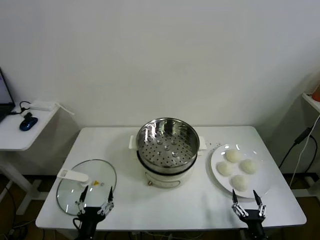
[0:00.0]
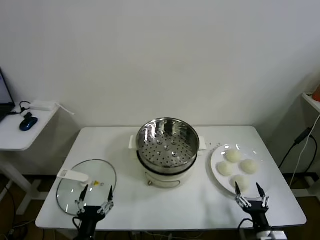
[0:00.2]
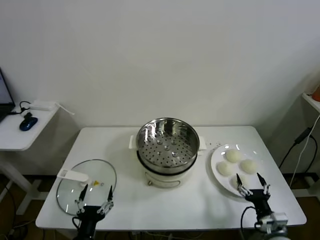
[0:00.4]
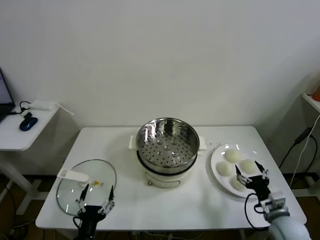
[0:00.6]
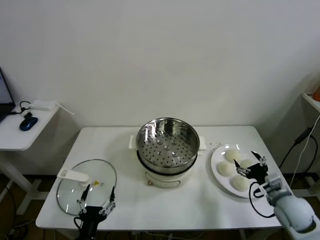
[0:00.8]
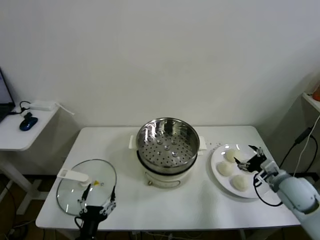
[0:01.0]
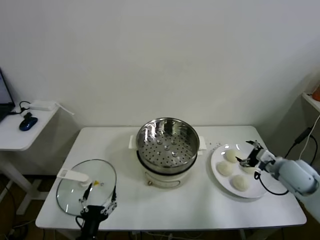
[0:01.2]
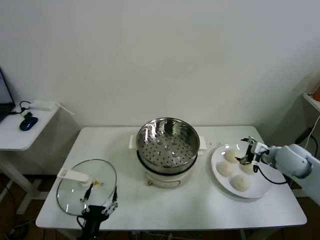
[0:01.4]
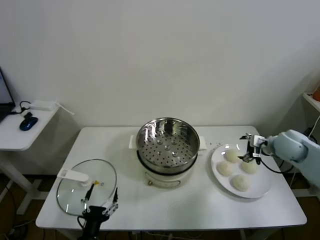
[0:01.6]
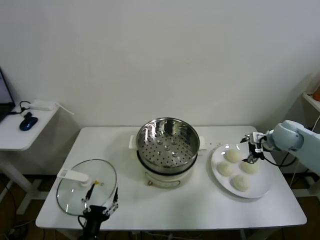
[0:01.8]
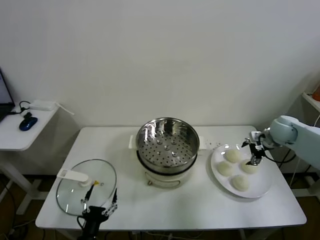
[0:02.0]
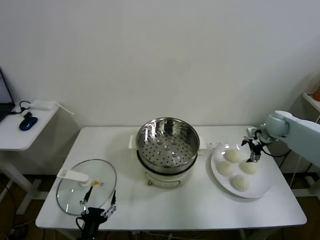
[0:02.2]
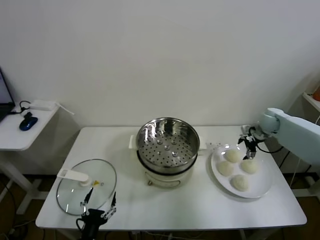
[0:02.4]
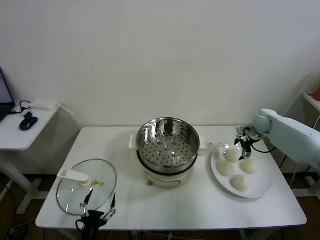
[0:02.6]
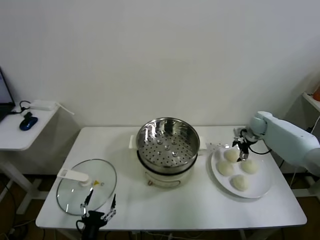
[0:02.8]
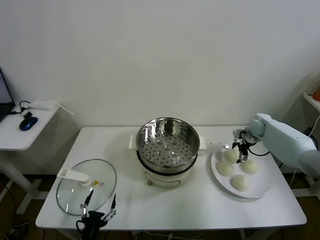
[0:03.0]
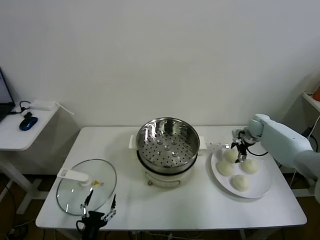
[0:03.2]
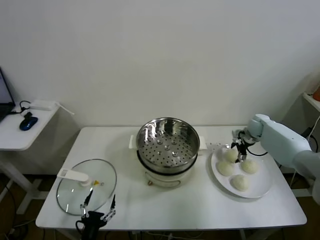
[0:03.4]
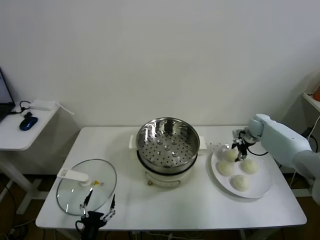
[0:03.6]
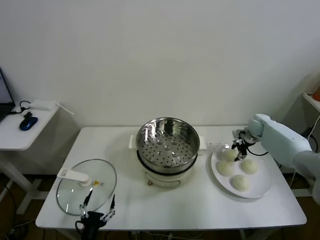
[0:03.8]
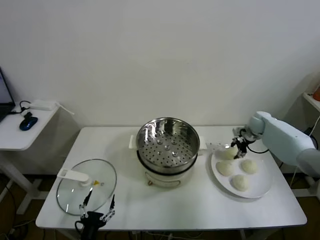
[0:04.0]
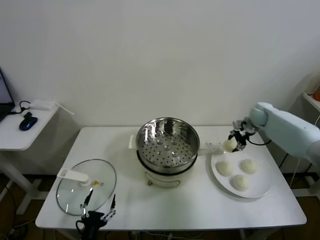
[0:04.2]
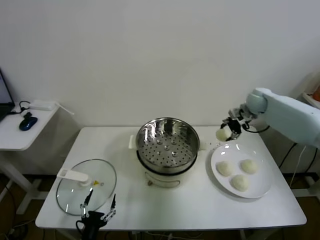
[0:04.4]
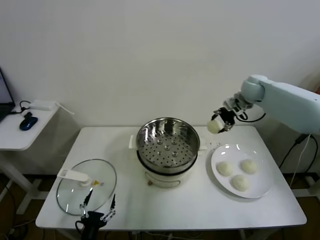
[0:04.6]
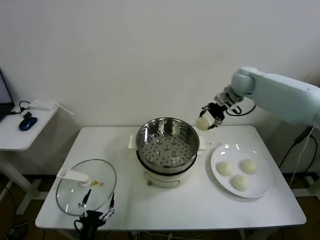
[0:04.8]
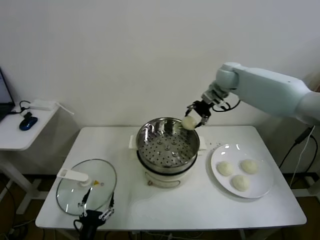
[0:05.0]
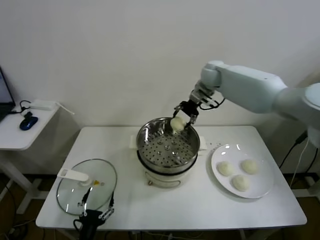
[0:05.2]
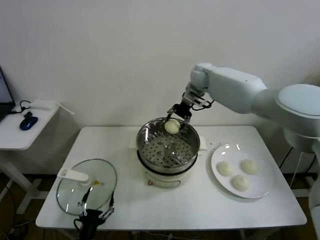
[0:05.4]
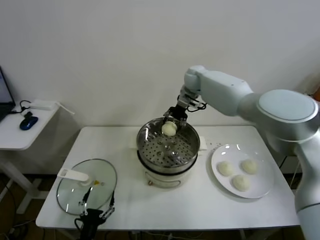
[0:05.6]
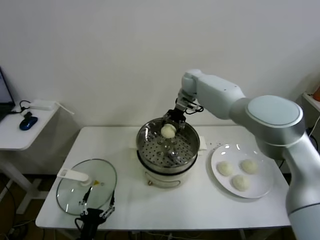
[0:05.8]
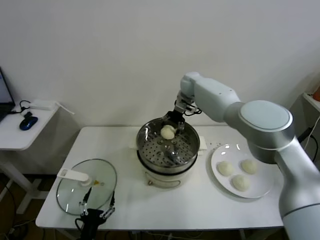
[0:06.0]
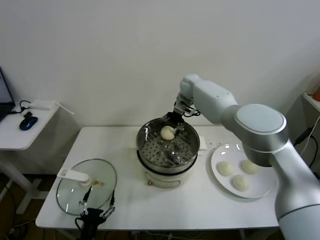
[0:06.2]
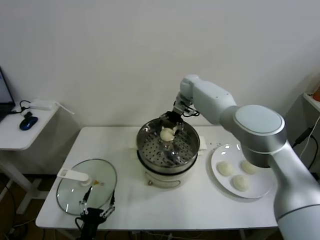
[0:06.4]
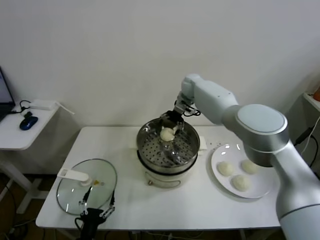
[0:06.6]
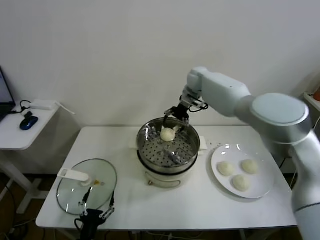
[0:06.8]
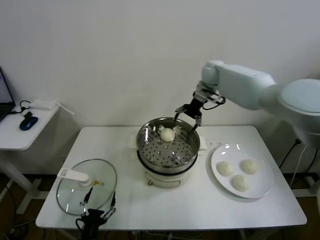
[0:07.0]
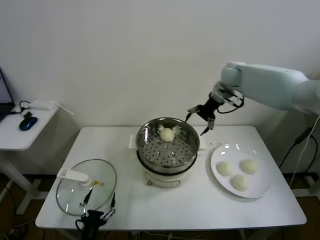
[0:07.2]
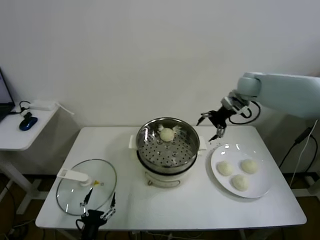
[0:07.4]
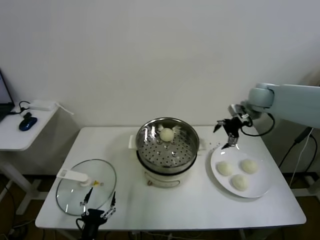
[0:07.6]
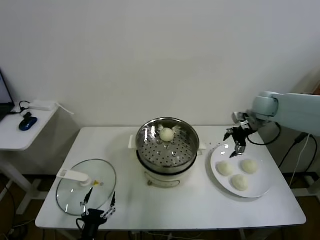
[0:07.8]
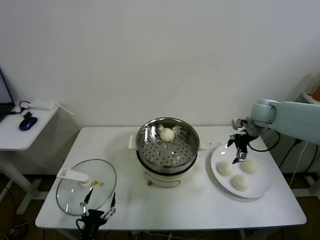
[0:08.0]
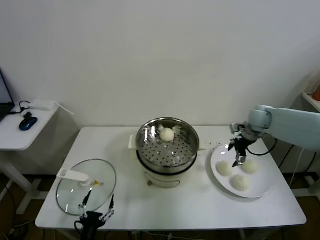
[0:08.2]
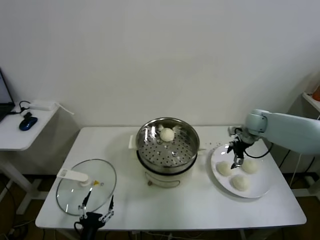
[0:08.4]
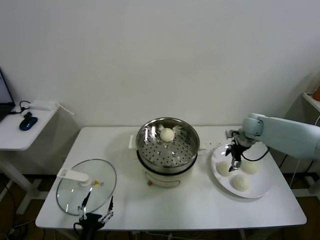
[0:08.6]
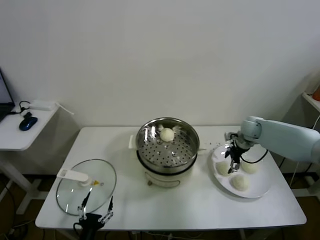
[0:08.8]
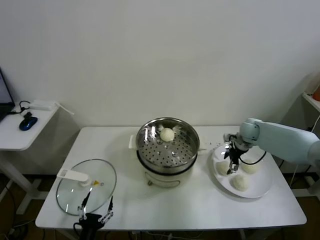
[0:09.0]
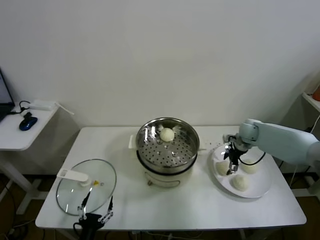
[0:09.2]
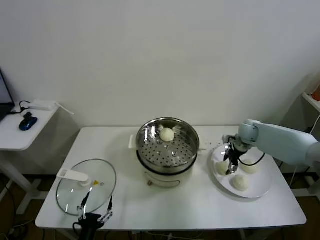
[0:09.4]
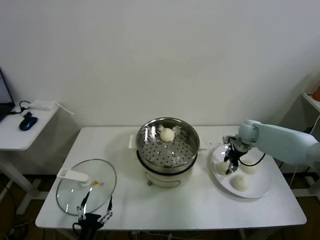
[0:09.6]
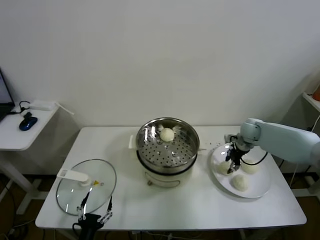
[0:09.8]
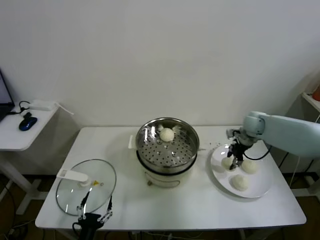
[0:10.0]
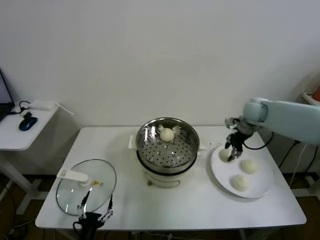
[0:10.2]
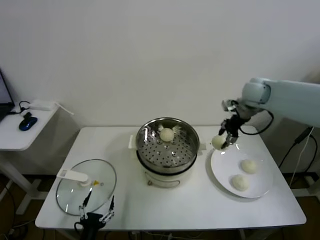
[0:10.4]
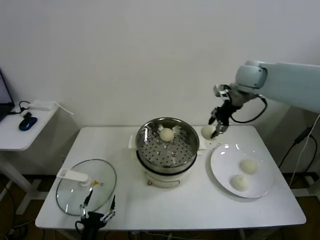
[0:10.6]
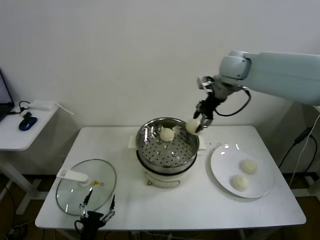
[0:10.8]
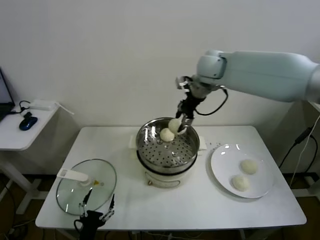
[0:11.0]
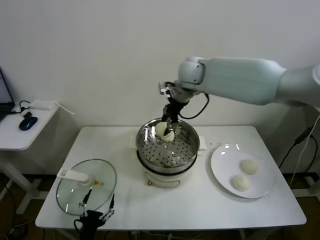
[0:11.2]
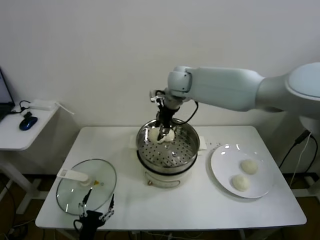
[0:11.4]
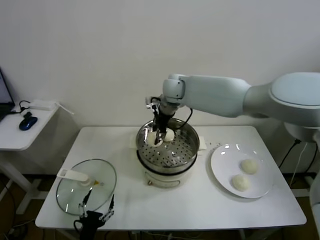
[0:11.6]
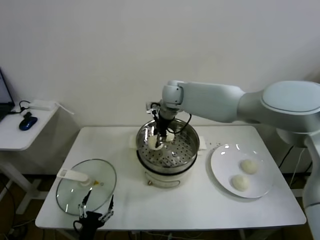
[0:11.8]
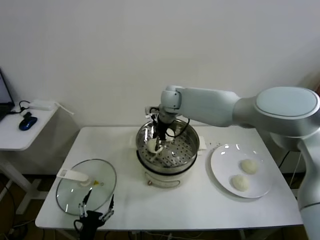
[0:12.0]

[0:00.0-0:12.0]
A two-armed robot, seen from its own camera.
Task of the whole recording: take steamed baozi put them in steamer.
Step, 0:00.0 to 0:03.8: Grasp the baozi in the plate with right gripper.
Step, 0:04.0 to 0:06.6: Place the baozi on the steamer with right gripper.
Step, 0:06.8 to 0:09.6: Grasp the baozi in the plate with right gripper.
0:01.6 to 0:03.0: The right gripper heads forward and downward, covering some 15 cm.
0:03.0 to 0:04.4: The right gripper heads upward and to the left, covering about 15 cm, and closes its fingers.
0:04.4 to 0:06.0: The right gripper moves to the left, roughly 25 cm.
0:06.0 to 0:07.6: The right gripper goes approximately 25 cm to the right and backward, and opens.
0:07.6 to 0:09.0: The right gripper is displaced downward by approximately 15 cm.
0:09.0 to 0:10.4: The right gripper goes roughly 20 cm upward, and closes up.
0:10.4 to 0:12.0: The right gripper is displaced to the left by some 25 cm.

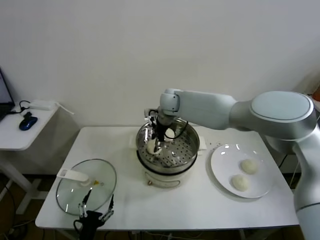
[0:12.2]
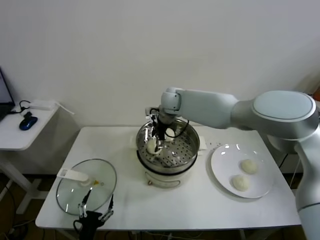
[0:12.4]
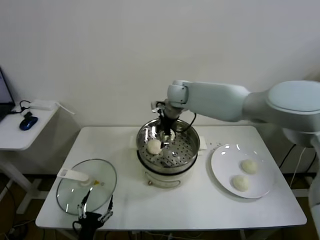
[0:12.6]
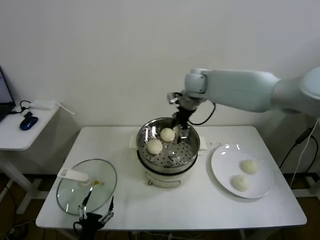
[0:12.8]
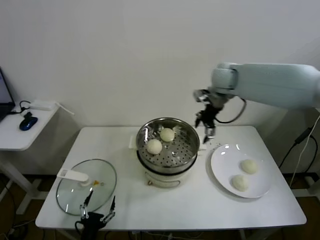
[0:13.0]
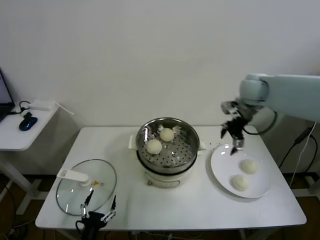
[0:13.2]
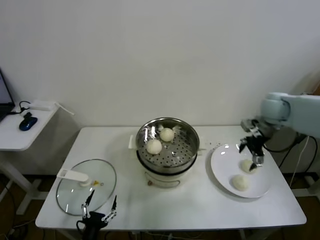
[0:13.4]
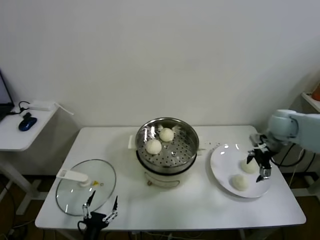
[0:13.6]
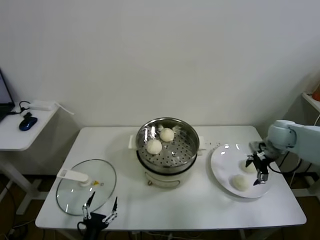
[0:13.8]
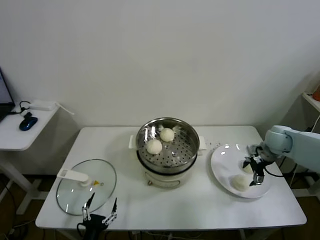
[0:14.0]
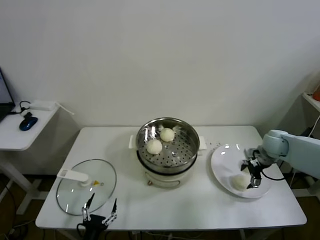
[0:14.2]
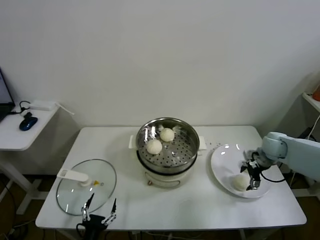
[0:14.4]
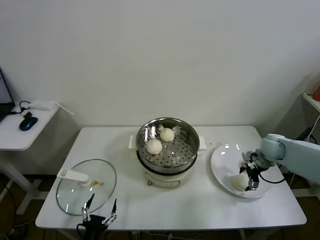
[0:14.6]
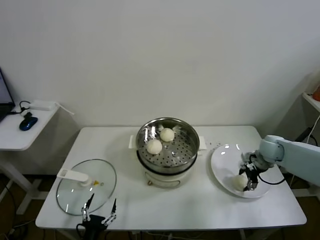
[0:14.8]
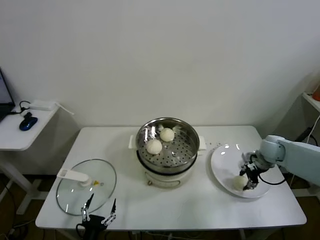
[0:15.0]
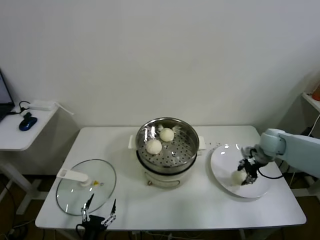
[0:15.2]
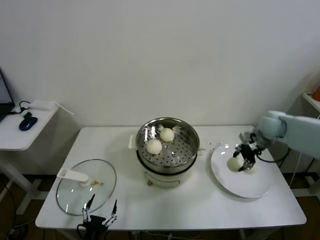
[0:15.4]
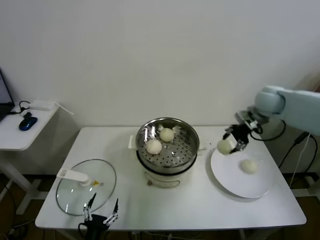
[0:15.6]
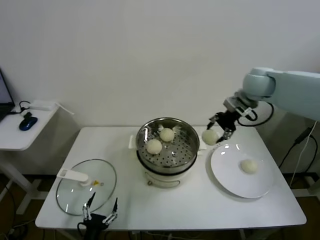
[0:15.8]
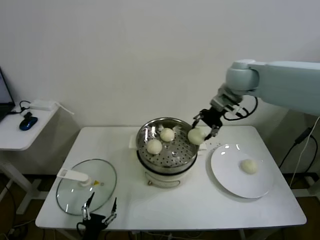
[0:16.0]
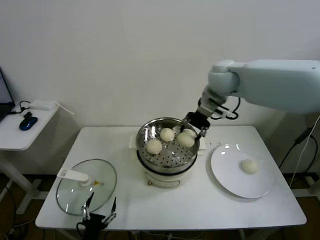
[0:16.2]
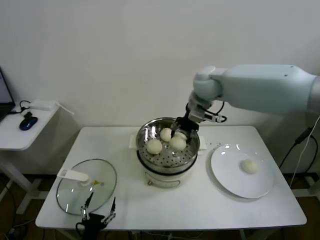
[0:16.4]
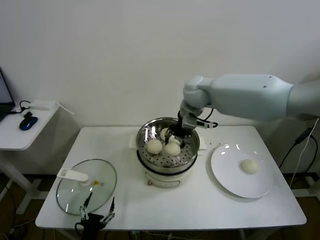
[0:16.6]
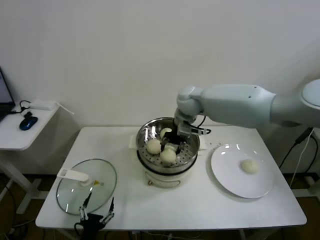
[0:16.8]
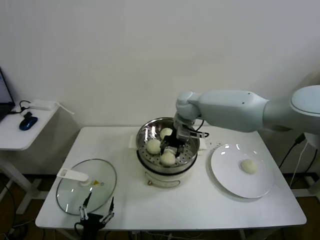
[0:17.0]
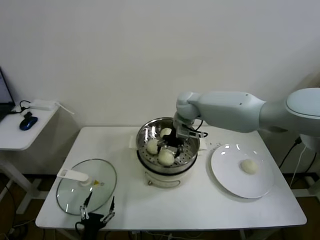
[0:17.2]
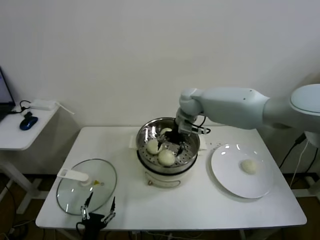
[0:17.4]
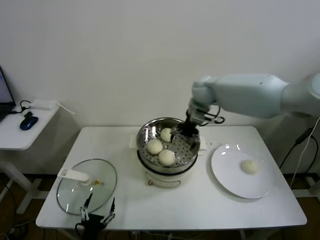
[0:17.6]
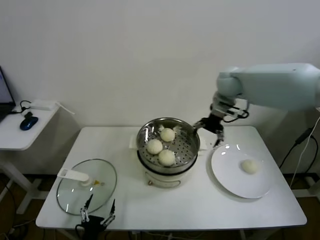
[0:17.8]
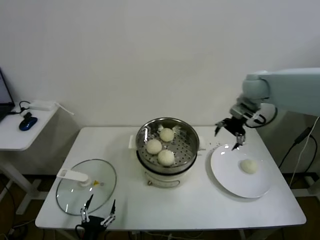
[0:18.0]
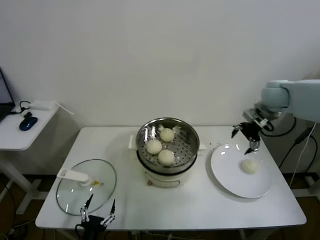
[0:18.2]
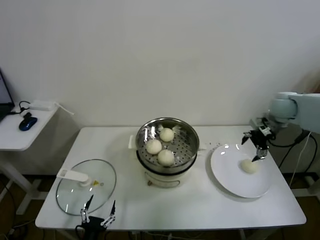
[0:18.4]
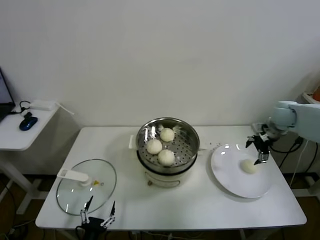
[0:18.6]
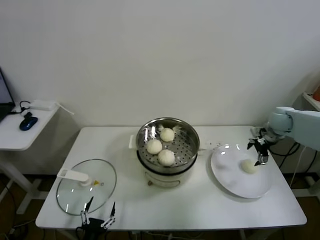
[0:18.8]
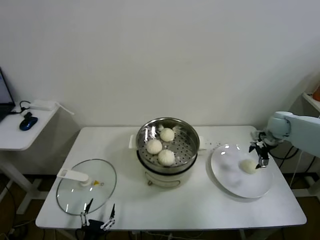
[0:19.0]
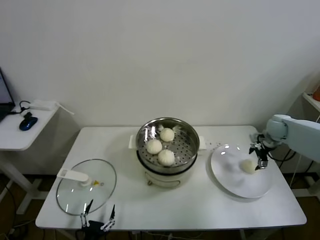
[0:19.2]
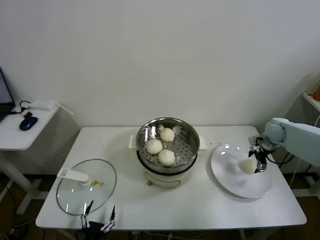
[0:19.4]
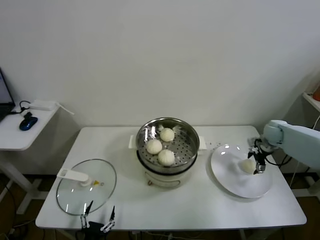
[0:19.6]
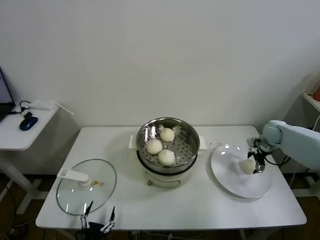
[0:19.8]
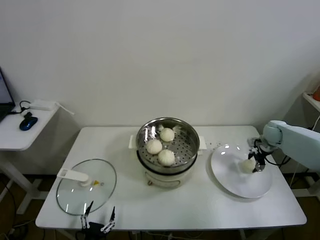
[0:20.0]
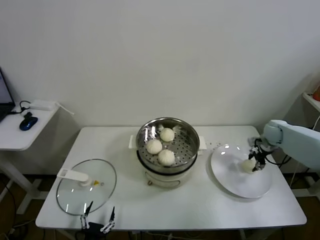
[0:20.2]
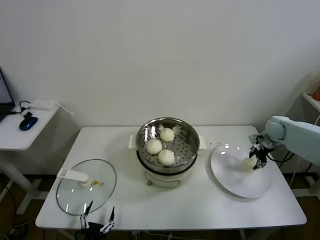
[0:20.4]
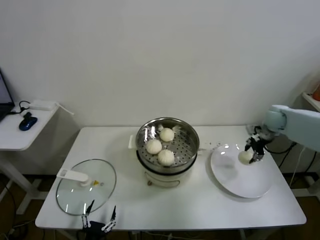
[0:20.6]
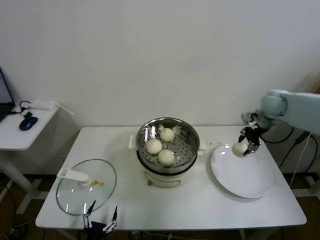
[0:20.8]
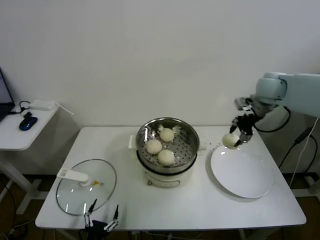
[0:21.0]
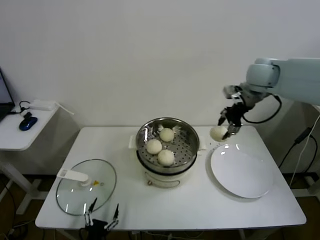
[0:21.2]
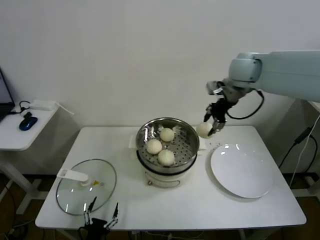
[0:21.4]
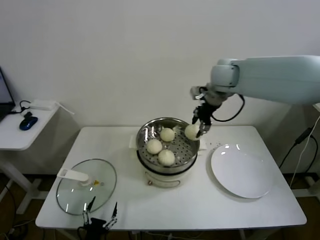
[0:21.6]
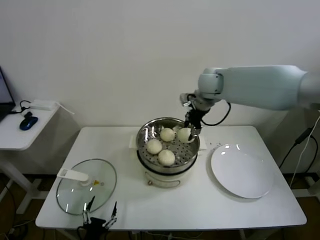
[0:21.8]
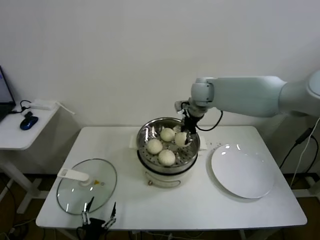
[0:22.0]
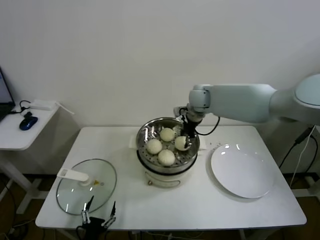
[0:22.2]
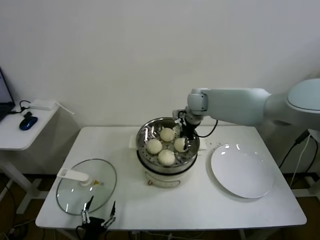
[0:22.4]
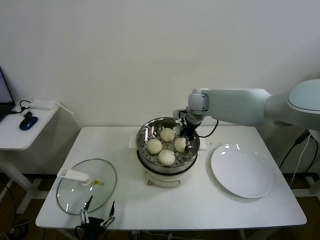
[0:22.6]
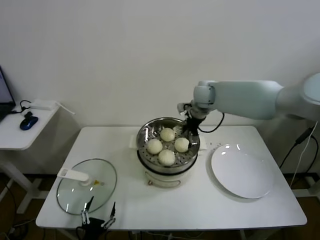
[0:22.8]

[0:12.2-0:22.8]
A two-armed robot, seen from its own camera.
Task of the whole recording: take steamed baozi put them in steamer.
Step, 0:12.6 to 0:15.0: Grasp the baozi in the plate with right gripper.
Step, 0:15.2 to 0:17.4: Place the baozi on the steamer with right gripper.
Step, 0:17.6 to 0:20.2: Grasp the baozi in the plate with right gripper.
Step, 0:20.4 to 0:22.8: Place the baozi on the steamer with right gripper.
0:12.2 to 0:13.8: The right gripper heads to the right, covering about 40 cm, and opens.
0:13.8 to 0:15.2: The right gripper closes its fingers.
0:15.2 to 0:16.8: The right gripper heads to the left and upward, covering roughly 35 cm.
0:16.8 to 0:18.2: The right gripper is displaced to the right by approximately 25 cm, and opens.
0:18.2 to 0:19.8: The right gripper is displaced downward and to the right by roughly 20 cm.
0:19.8 to 0:21.2: The right gripper travels upward and to the left by some 30 cm, and closes up.
0:21.2 to 0:22.8: The right gripper shifts some 20 cm to the left and downward, and opens up.
